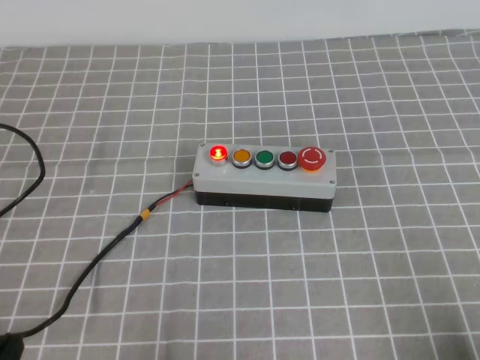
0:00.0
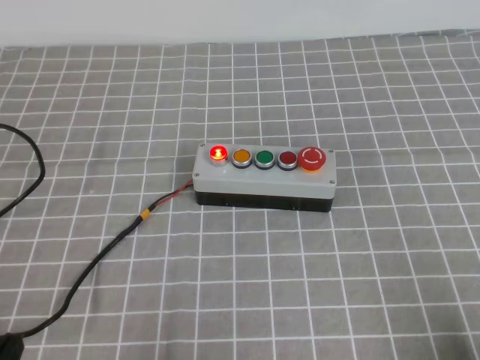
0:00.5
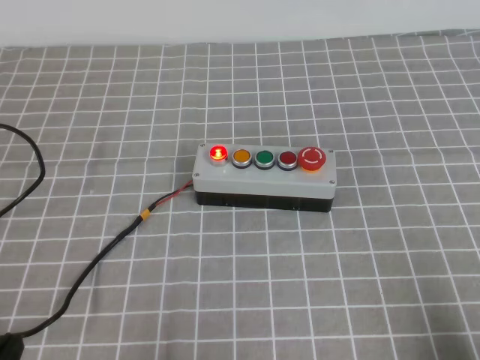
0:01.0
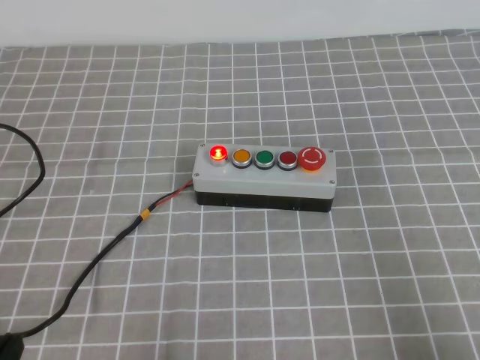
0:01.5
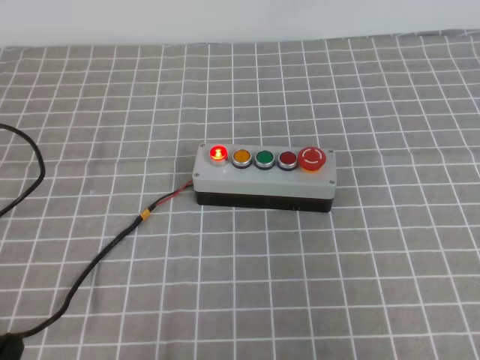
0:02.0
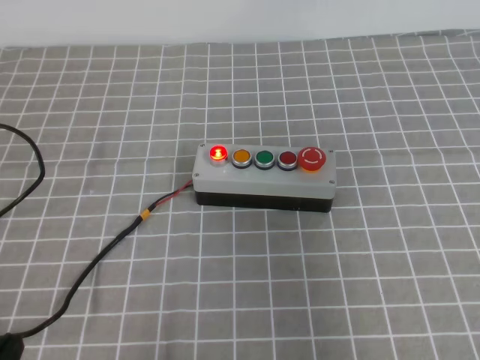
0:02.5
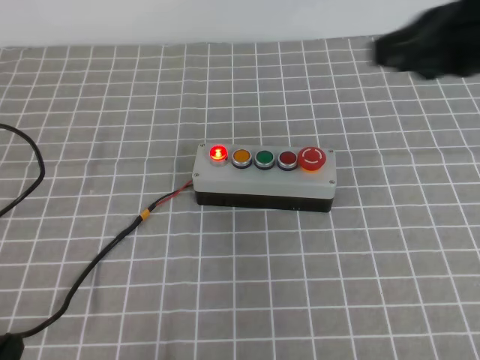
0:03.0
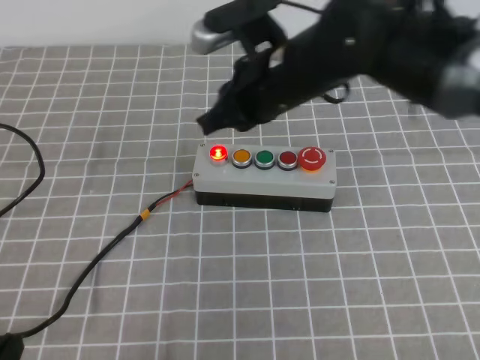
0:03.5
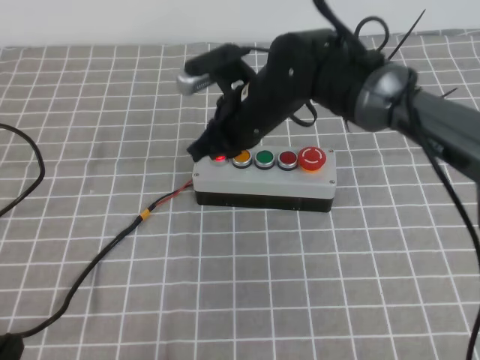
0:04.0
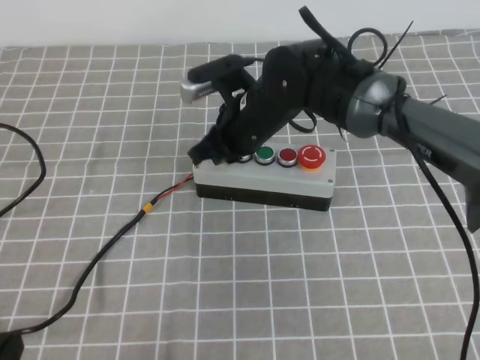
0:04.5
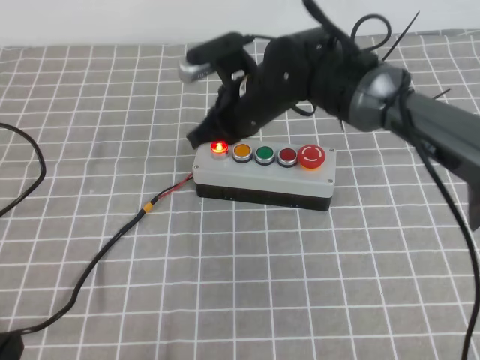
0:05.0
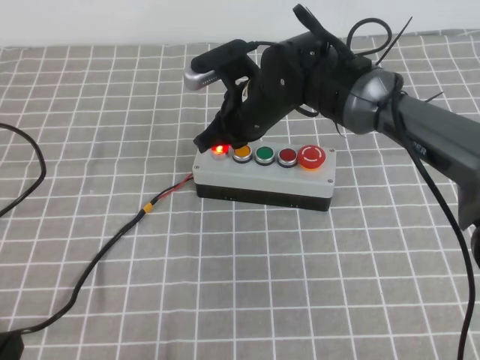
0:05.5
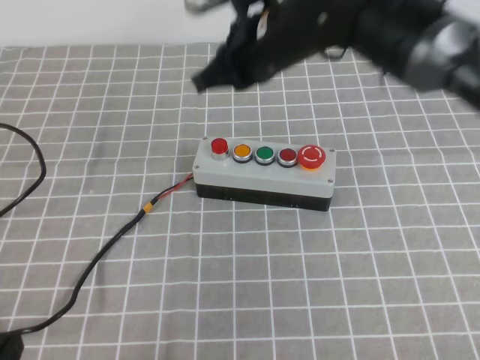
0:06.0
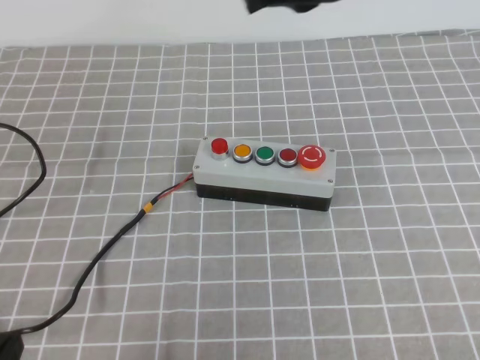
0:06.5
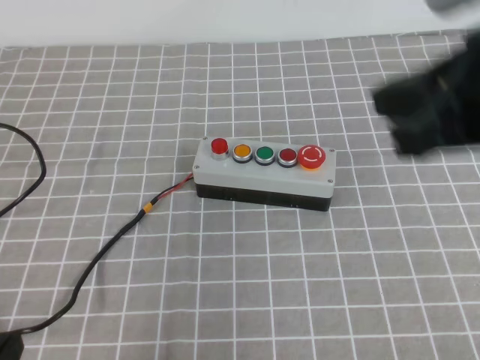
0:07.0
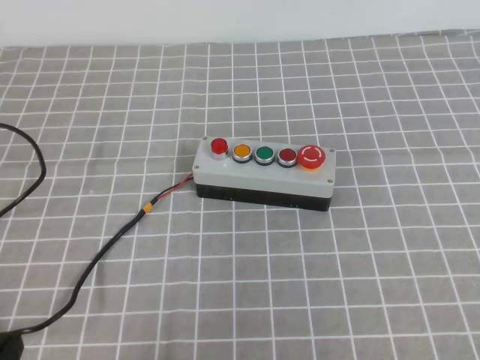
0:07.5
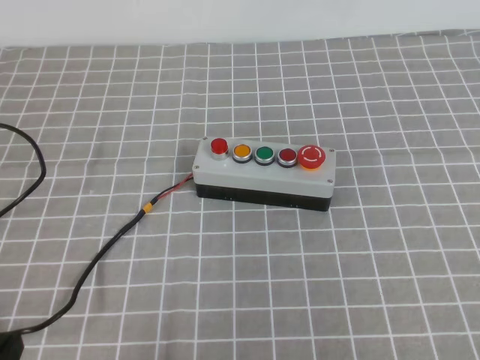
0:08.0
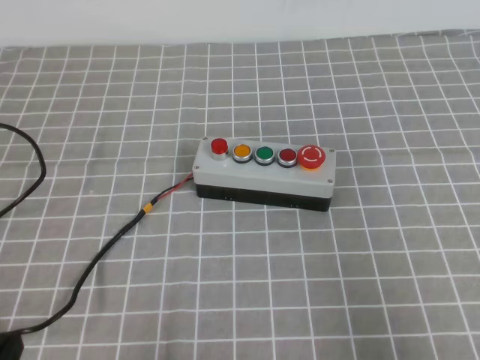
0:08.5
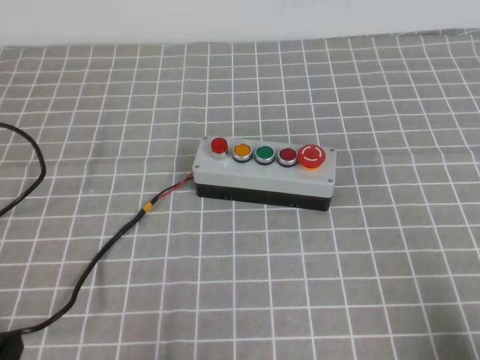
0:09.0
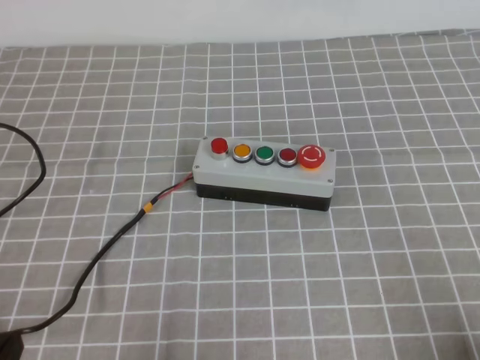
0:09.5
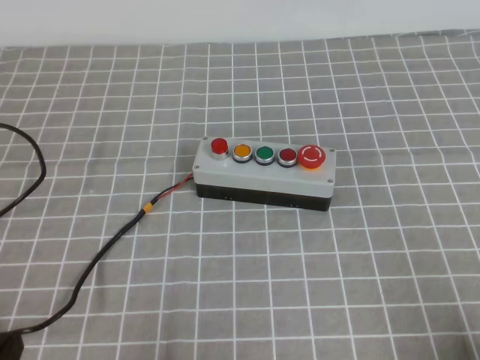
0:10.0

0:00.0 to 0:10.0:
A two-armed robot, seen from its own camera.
Task of the whole recording: press the button switch on the grey tablecloth with the right gripper to turn off the button.
Step, 0:00.0 to 0:10.0: Press the button to turn off.
0:00.0 to 0:02.0: The right gripper travels upward by approximately 20 cm.
0:02.0 to 0:04.0: The right gripper goes roughly 50 cm forward and to the left.
0:04.0 to 0:06.0: The right gripper heads upward, covering approximately 5 cm.
0:06.0 to 0:08.0: The right gripper goes about 40 cm backward and to the right.
0:08.0 to 0:10.0: The right gripper travels downward by roughly 15 cm.

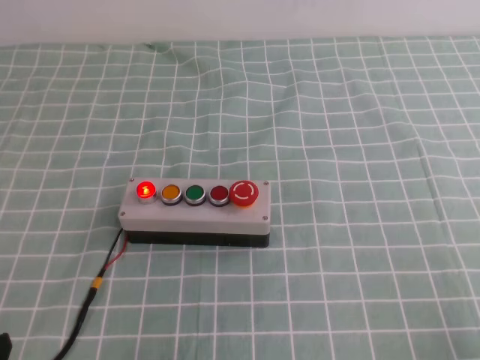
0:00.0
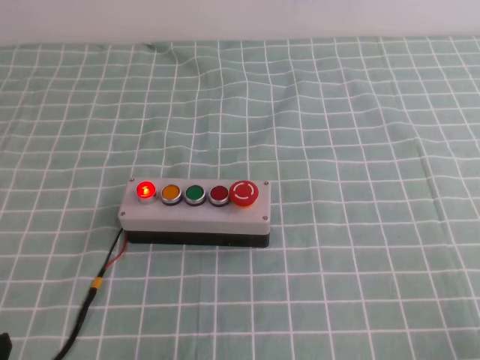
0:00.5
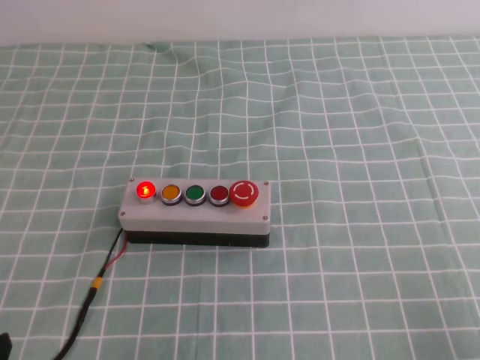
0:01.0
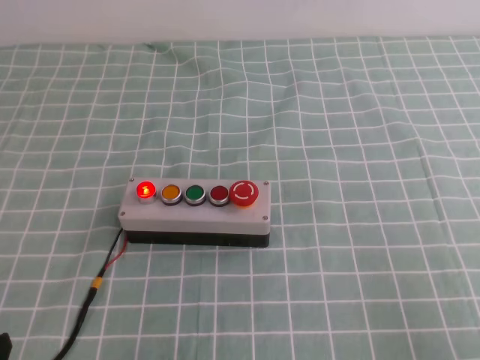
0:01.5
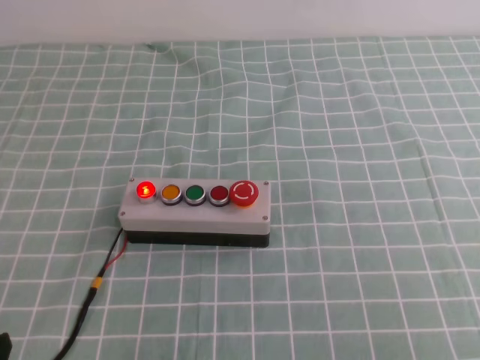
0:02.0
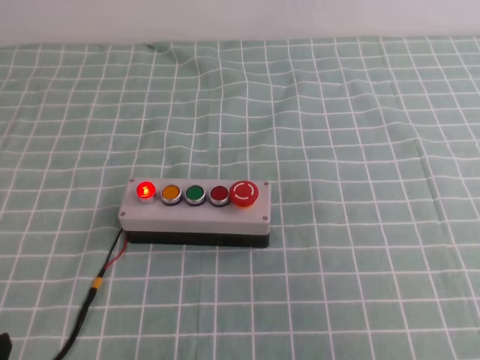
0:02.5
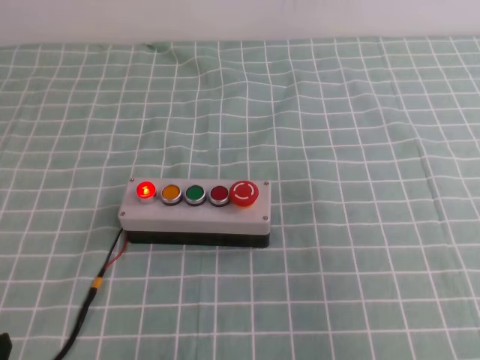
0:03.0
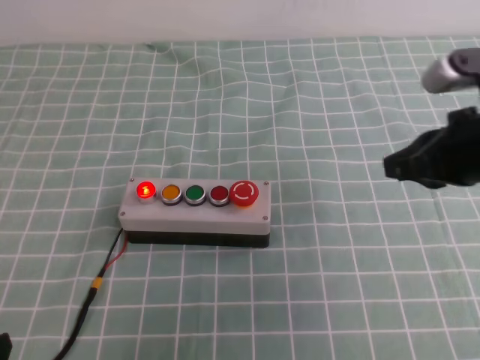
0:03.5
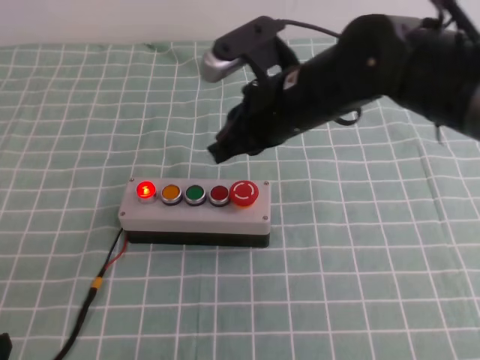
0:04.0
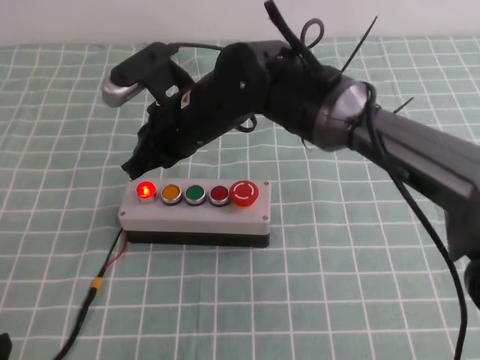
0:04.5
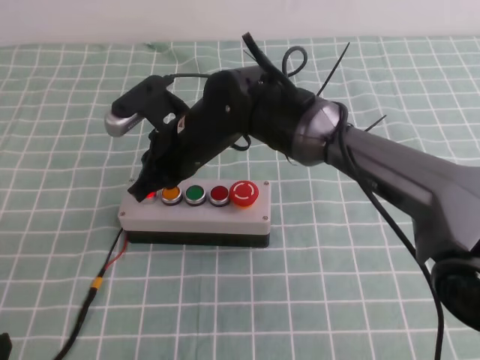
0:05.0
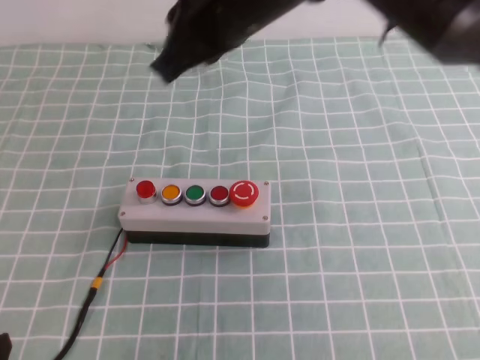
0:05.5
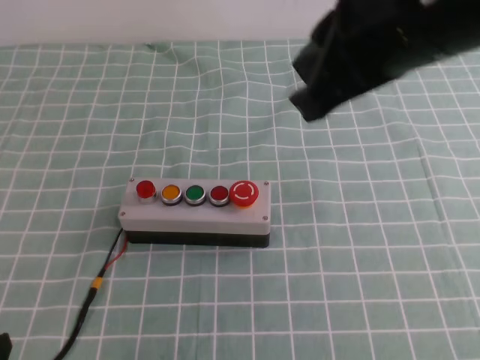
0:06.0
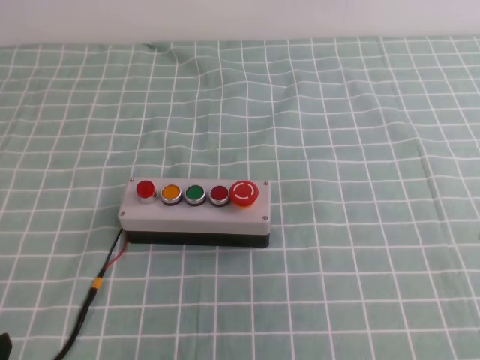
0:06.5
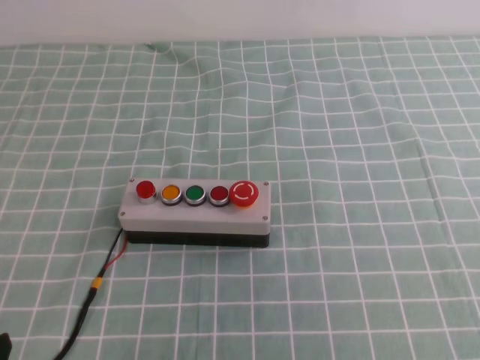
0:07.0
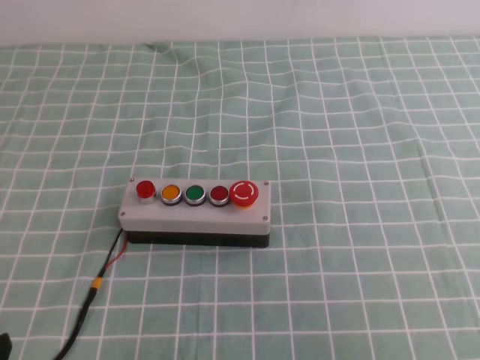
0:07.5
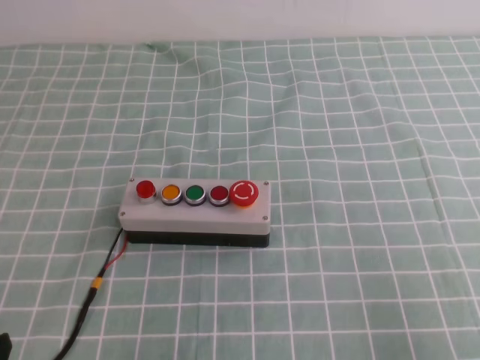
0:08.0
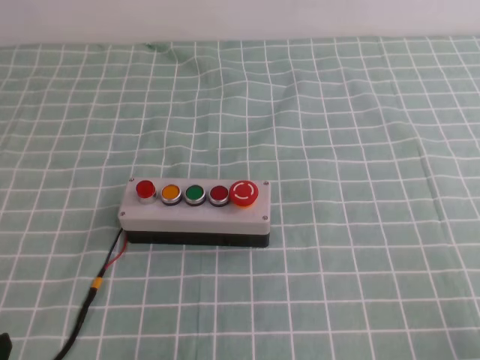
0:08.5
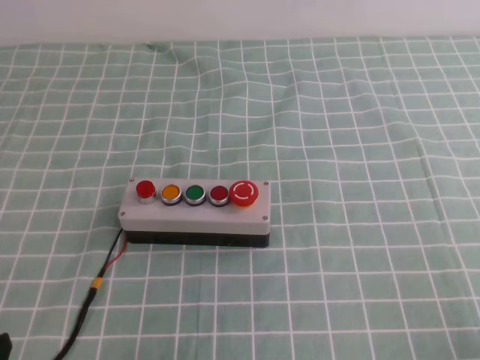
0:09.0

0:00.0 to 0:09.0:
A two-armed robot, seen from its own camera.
Task of the whole recording: press the button switch on the cyan tablecloth with the right gripper to turn off the button.
Step, 0:00.0 to 0:09.0: Press the button to turn off.
0:02.0 to 0:04.5: The right gripper travels to the left and forward by about 50 cm.
0:04.5 to 0:07.0: The right gripper is displaced to the right and backward by some 40 cm.
